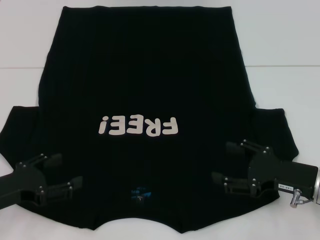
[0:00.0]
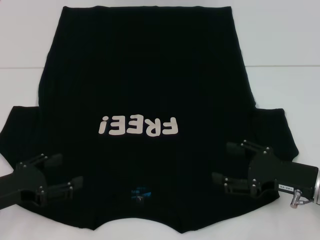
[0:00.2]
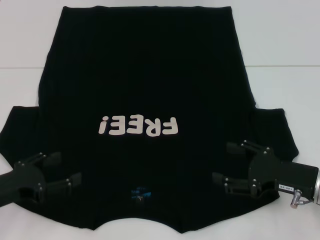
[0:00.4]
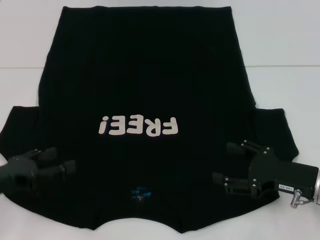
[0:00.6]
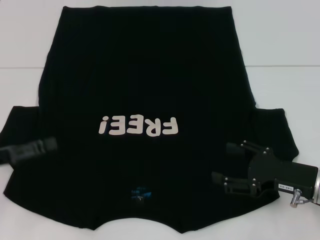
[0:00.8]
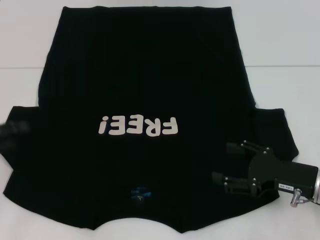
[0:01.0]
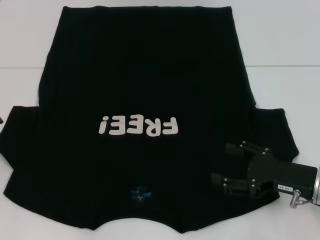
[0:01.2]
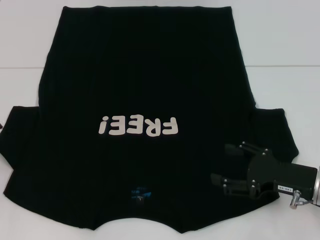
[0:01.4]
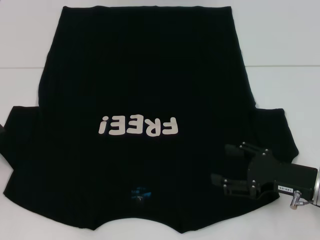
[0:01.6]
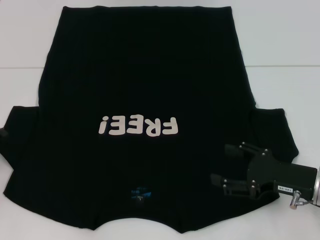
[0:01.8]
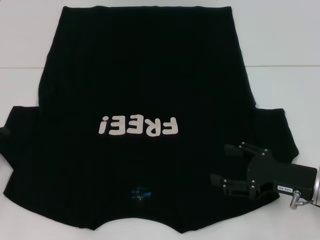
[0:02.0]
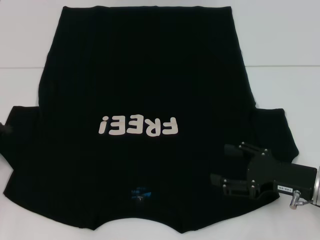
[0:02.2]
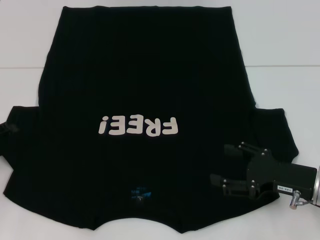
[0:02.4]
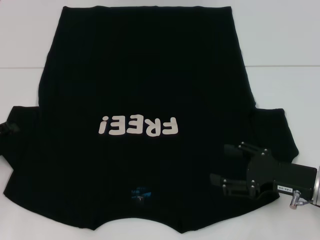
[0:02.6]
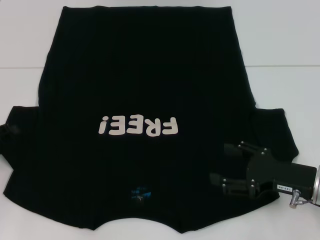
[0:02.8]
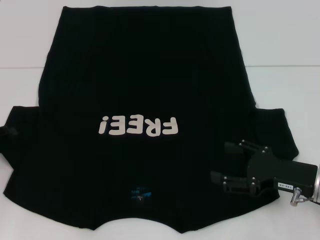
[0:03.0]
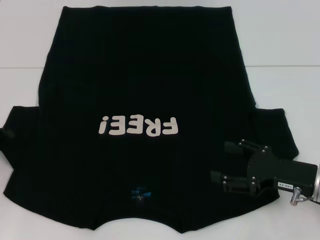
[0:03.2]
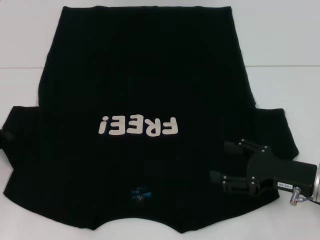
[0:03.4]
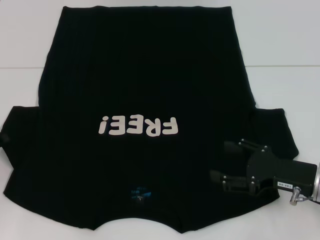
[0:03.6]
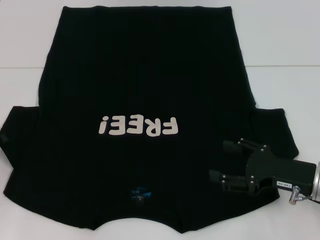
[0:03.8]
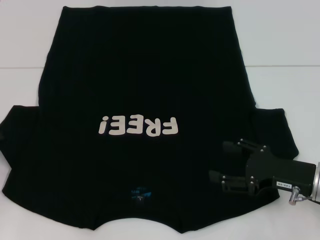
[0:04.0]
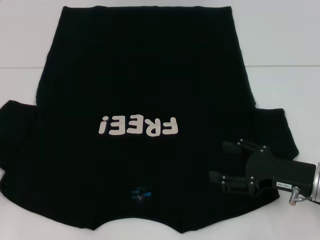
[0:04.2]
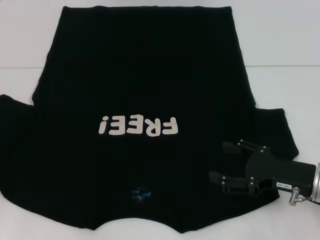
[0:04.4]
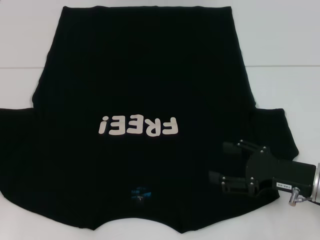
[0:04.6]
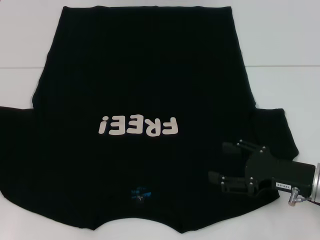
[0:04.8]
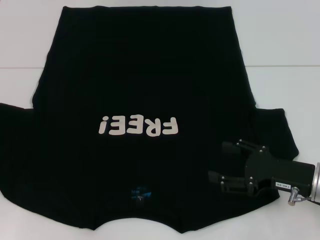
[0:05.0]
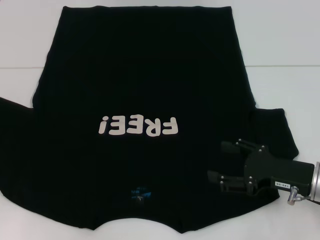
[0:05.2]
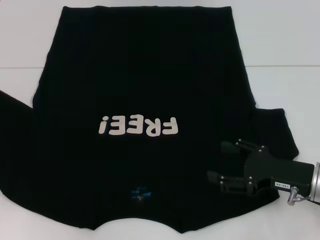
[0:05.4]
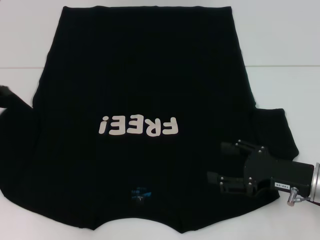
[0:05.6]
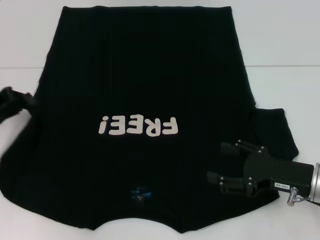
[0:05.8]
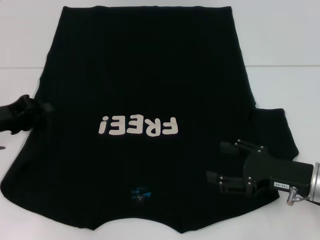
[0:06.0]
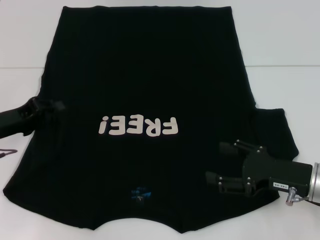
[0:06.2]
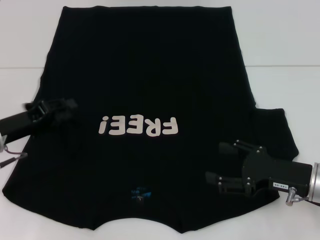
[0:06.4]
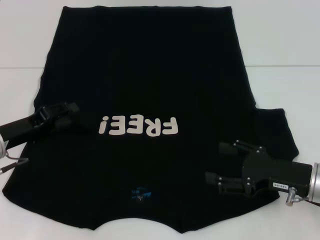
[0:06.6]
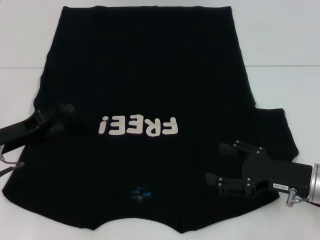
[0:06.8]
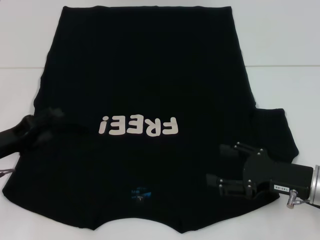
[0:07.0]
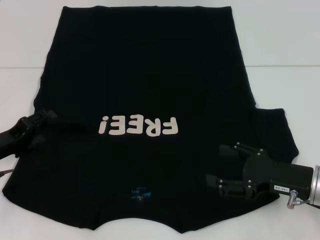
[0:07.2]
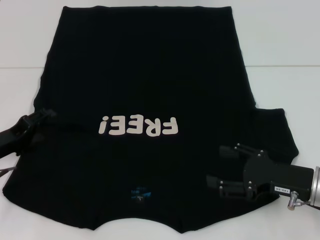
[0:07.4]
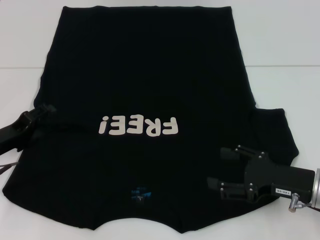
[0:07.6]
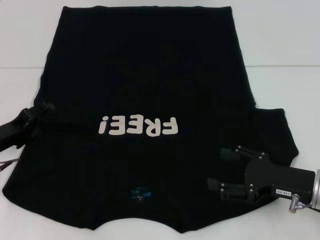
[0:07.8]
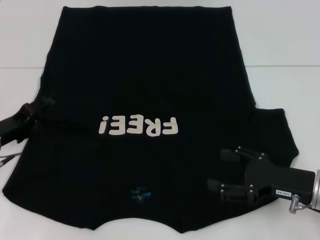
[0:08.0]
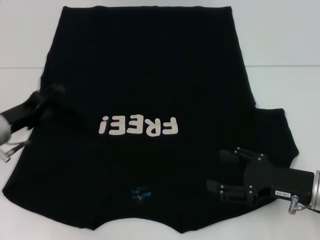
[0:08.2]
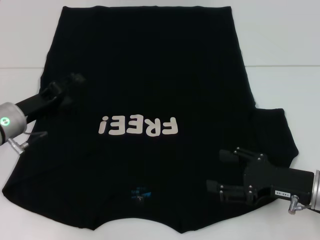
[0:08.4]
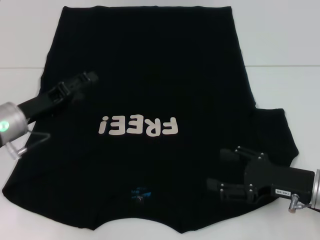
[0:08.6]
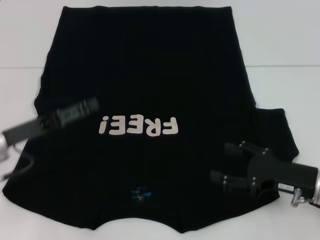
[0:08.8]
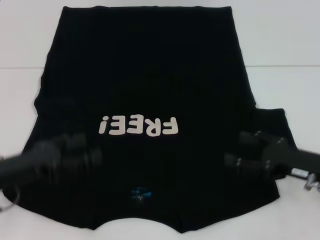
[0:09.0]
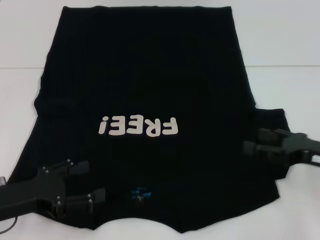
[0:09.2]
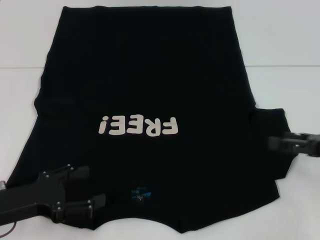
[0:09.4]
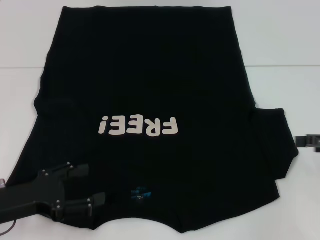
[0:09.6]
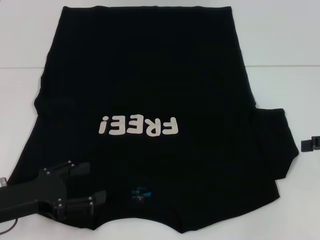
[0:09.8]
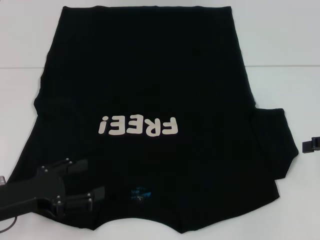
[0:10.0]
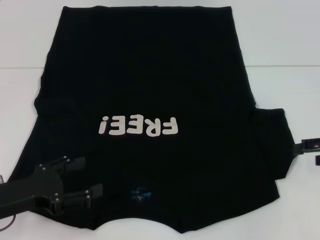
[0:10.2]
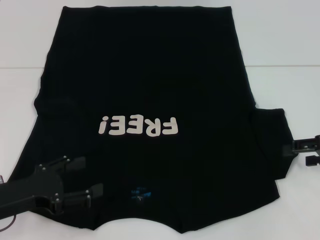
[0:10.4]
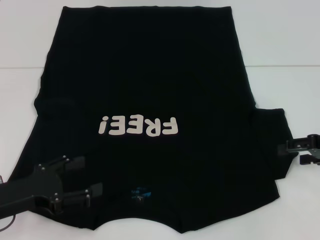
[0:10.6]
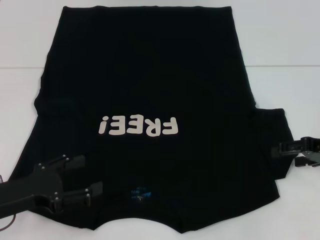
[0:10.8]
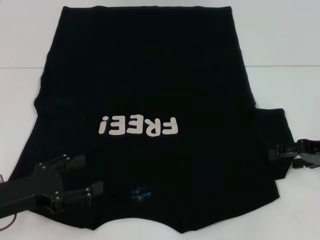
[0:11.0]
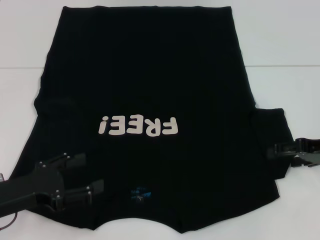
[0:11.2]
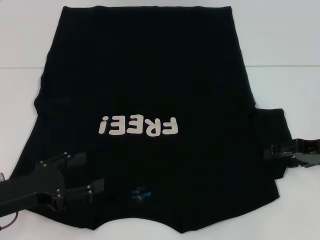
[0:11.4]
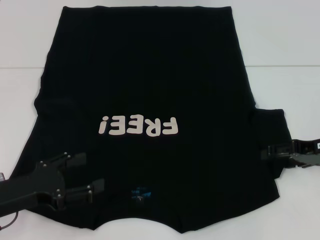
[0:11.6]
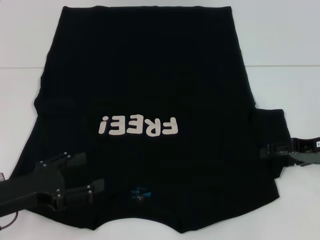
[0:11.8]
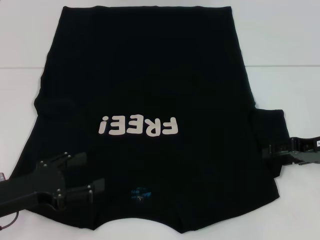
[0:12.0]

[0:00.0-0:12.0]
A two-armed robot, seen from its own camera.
Step, 0:00.0 to 0:06.4: Fold the bottom left sleeve with your left hand.
0:00.0 to 0:01.6: The left gripper goes about 10 cm to the left.
0:03.0 to 0:04.4: The left gripper closes.
0:04.4 to 0:06.0: The left gripper goes roughly 10 cm to the right.
0:06.0 to 0:07.6: The left gripper goes about 5 cm downward, and opens up.
0:07.6 to 0:09.0: The left gripper is displaced backward by about 5 cm.
0:09.0 to 0:10.4: The right gripper goes roughly 10 cm upward and to the right.
0:10.4 to 0:12.0: The grippers stay close to where they were, moving slightly.

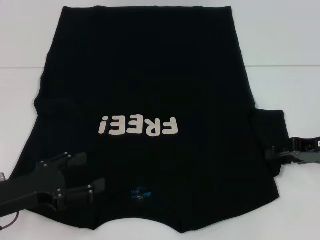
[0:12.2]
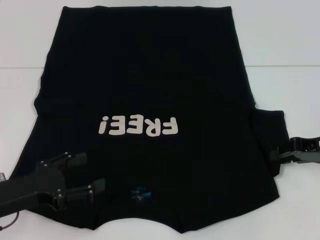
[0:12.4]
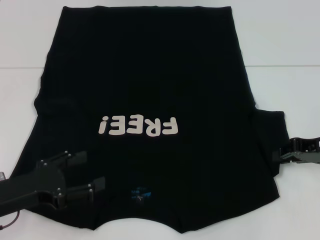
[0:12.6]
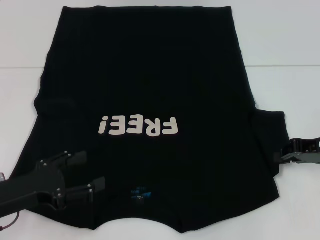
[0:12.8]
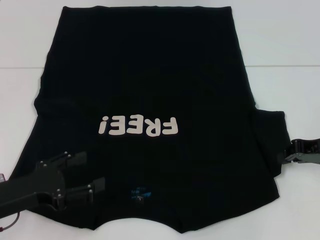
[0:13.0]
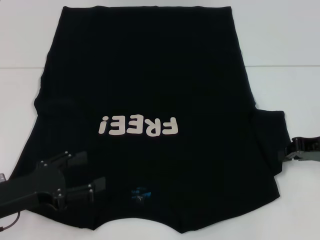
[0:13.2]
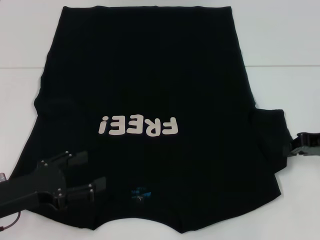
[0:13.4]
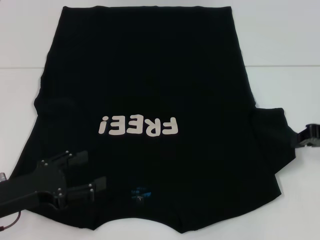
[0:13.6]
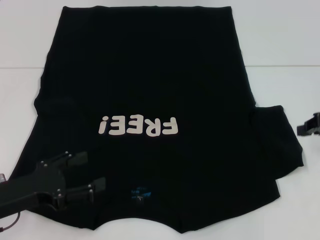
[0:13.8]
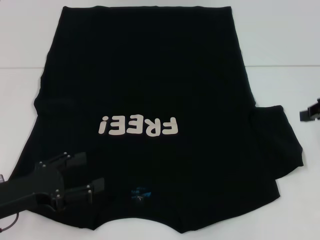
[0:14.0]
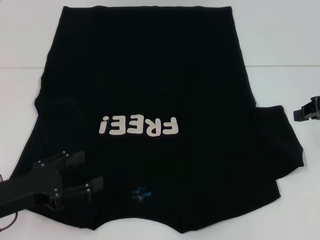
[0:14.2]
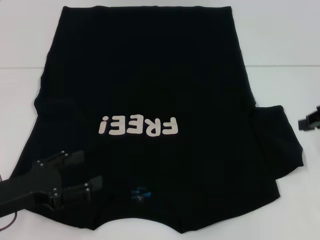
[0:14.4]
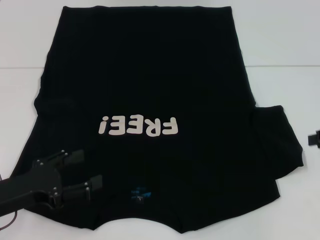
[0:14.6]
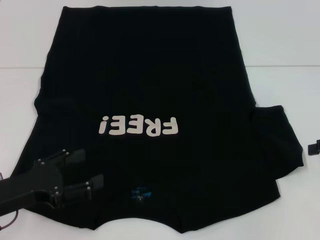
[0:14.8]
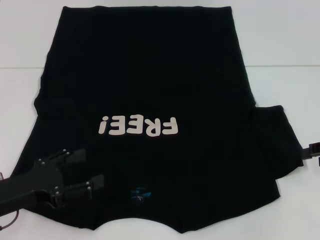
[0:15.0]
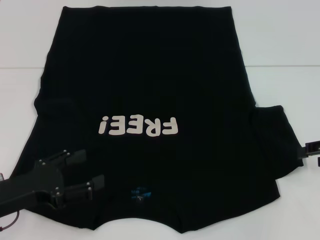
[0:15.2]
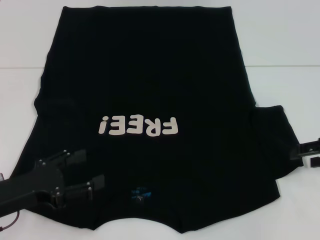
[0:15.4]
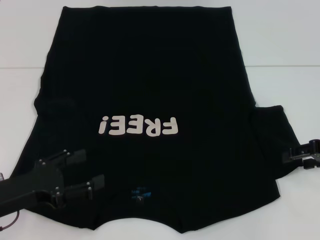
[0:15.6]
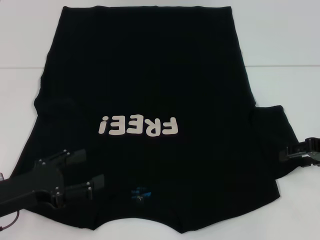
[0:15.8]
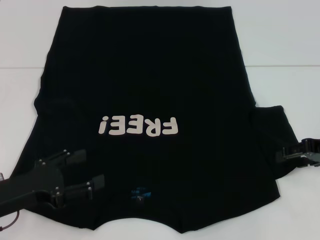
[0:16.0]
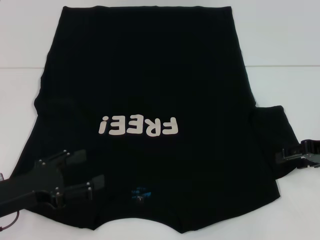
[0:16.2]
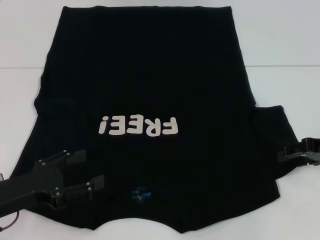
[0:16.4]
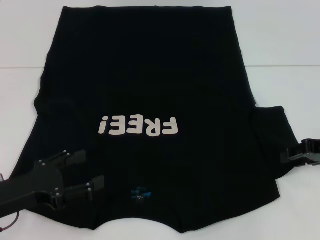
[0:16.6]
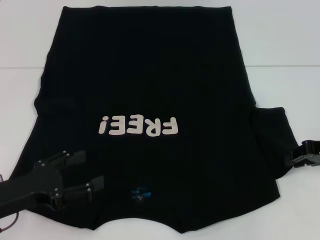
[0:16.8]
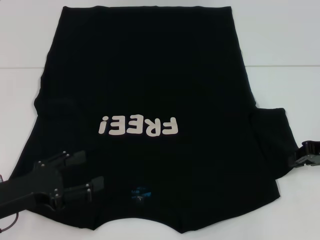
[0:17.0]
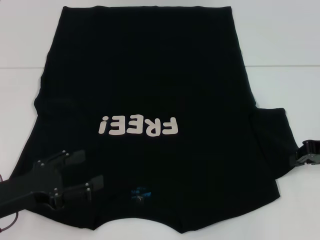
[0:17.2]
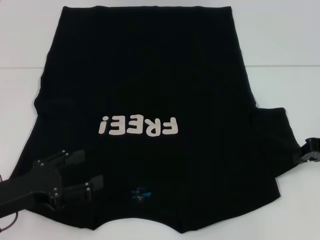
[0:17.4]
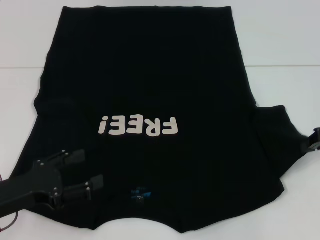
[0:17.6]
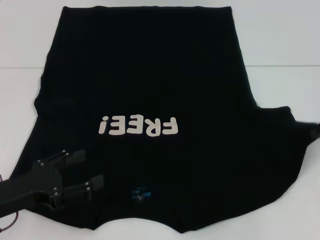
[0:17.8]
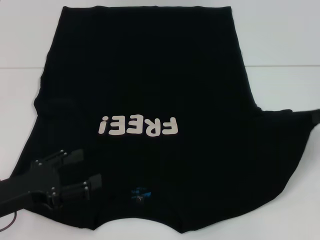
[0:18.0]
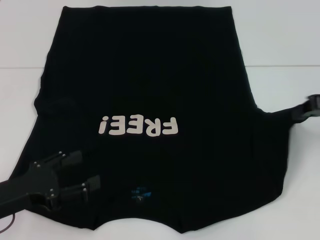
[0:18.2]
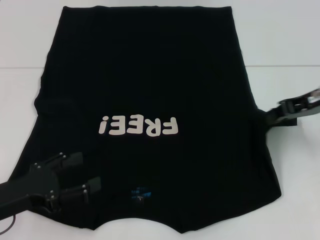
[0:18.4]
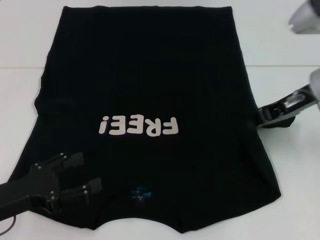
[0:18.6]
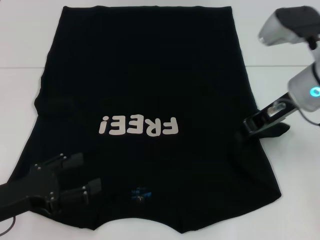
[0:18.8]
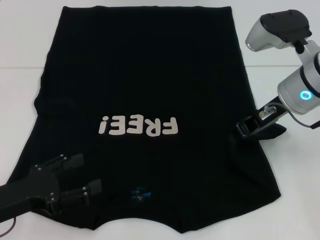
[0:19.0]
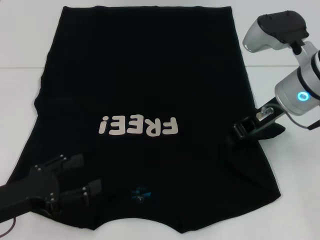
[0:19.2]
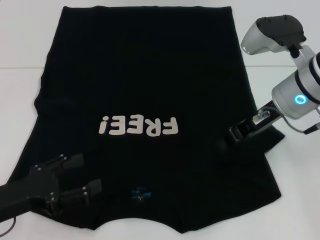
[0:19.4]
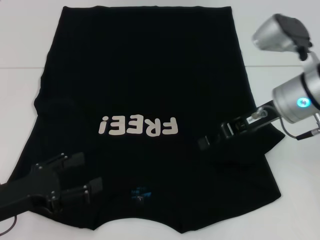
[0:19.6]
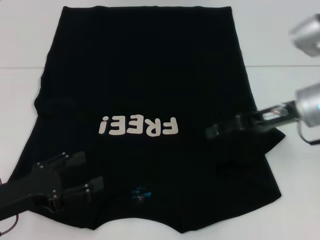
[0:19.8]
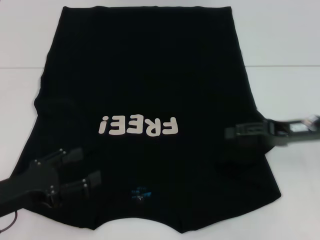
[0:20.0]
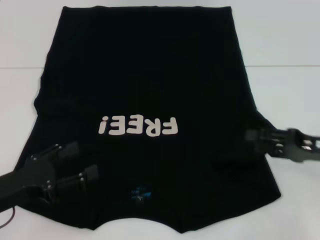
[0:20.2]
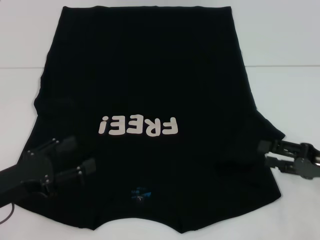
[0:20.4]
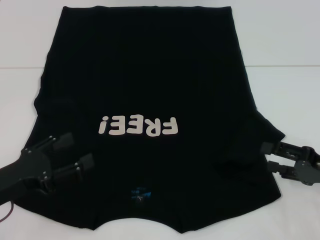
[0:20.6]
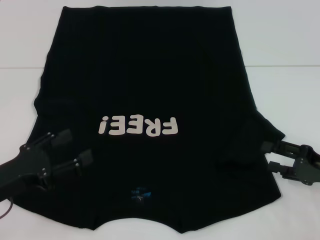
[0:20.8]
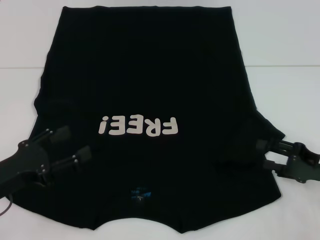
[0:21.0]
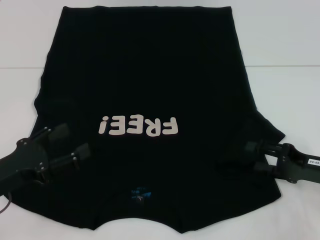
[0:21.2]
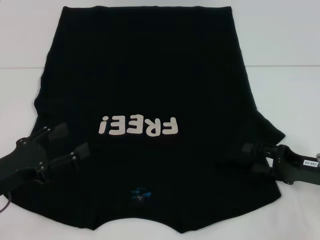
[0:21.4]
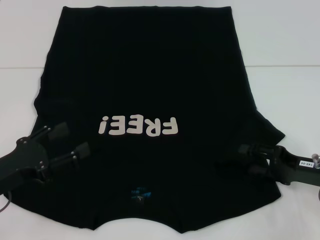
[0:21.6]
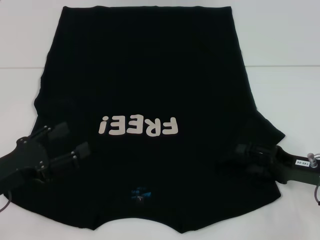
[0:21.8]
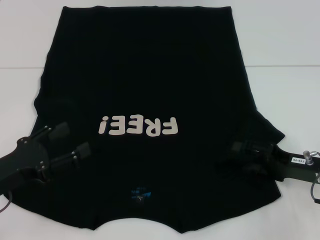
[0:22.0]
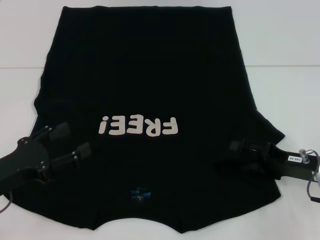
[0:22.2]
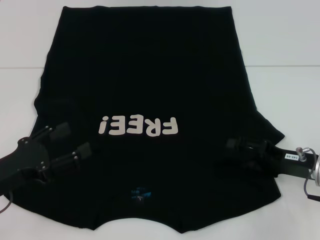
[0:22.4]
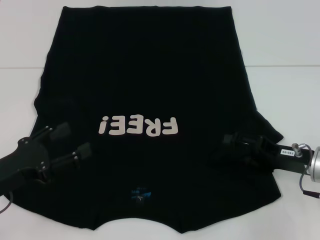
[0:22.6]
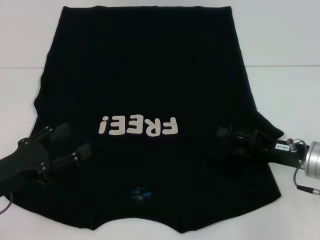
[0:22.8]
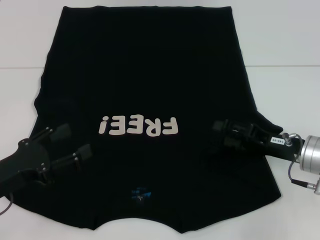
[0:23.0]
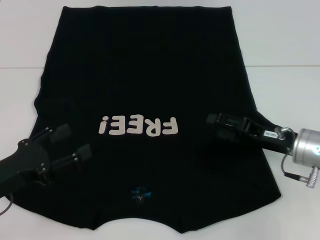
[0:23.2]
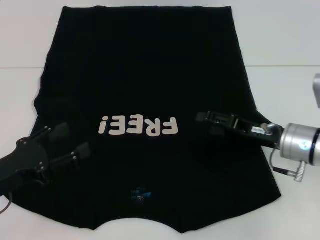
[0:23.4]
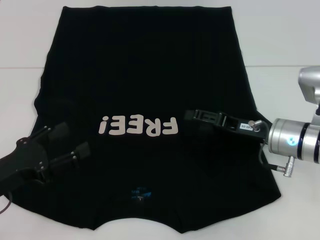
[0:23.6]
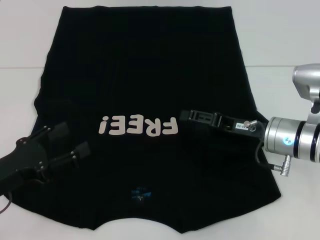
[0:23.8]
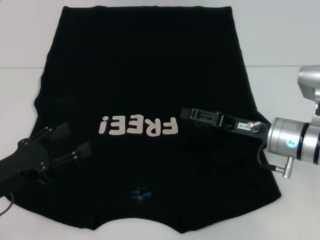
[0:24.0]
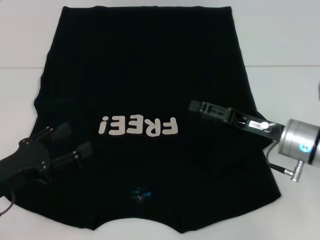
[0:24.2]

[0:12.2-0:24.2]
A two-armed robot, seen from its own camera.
Step, 0:12.2 to 0:19.4: Fold the bottom right sleeve with your right hand.
0:12.2 to 0:13.8: The right gripper shifts approximately 5 cm upward, and closes.
0:13.8 to 0:15.2: The right gripper opens.
0:16.6 to 0:18.2: The right gripper moves upward, about 5 cm, and closes up.
0:18.2 to 0:19.8: The right gripper heads to the left, covering about 10 cm, and opens.
0:19.8 to 0:21.2: The right gripper moves downward, backward and to the right, approximately 15 cm, and opens.
0:21.2 to 0:22.6: The grippers move only a little.
0:22.6 to 0:24.2: The right gripper heads to the left, covering roughly 5 cm.
